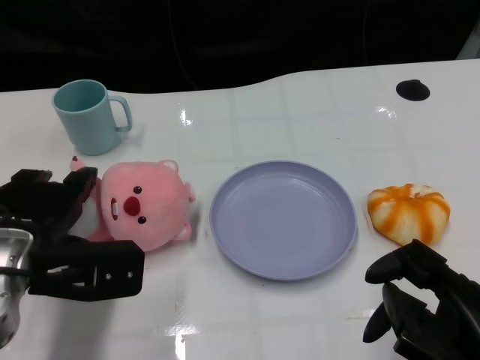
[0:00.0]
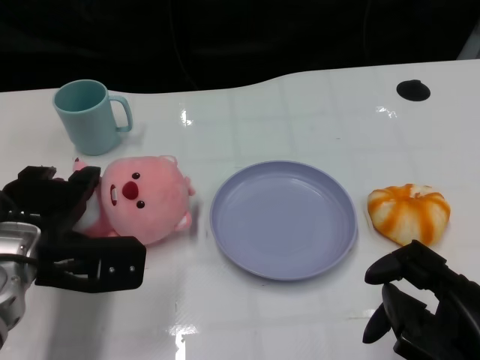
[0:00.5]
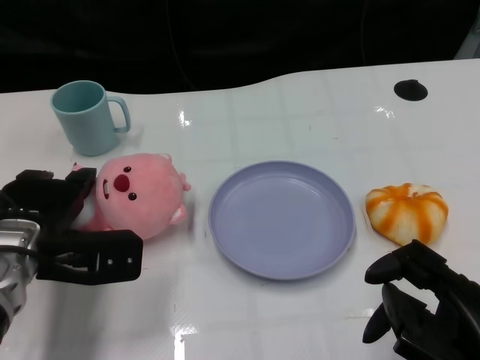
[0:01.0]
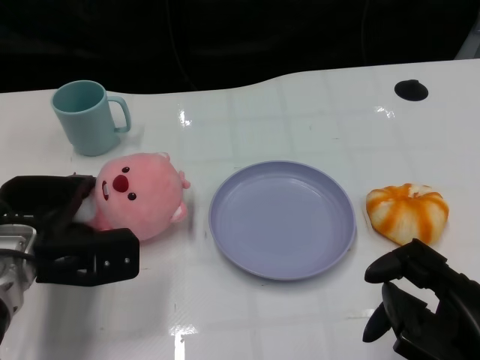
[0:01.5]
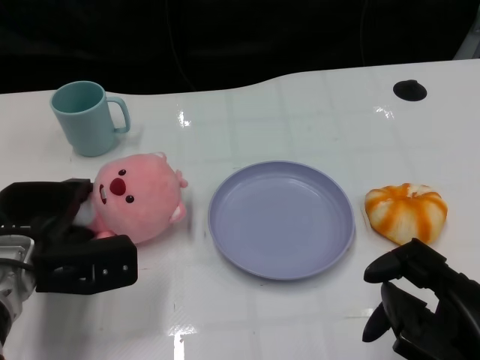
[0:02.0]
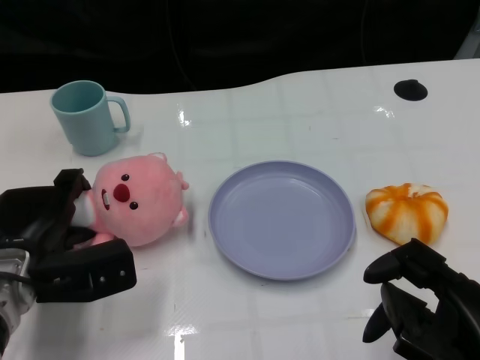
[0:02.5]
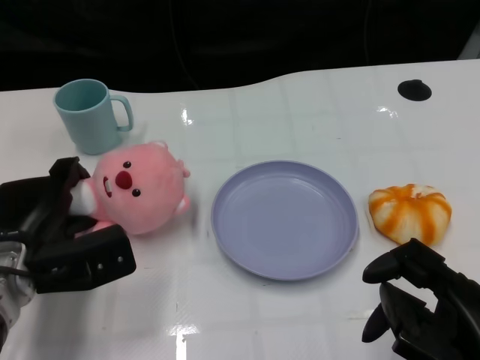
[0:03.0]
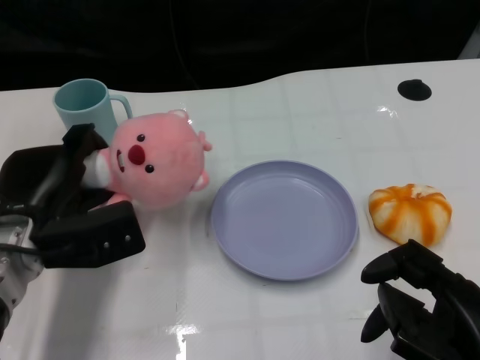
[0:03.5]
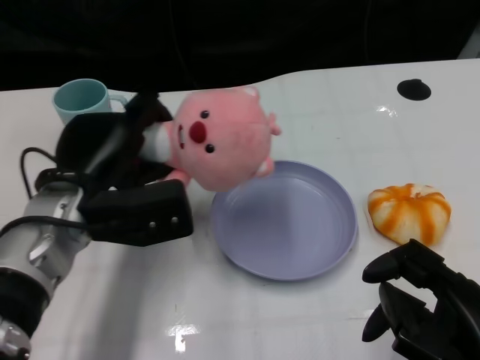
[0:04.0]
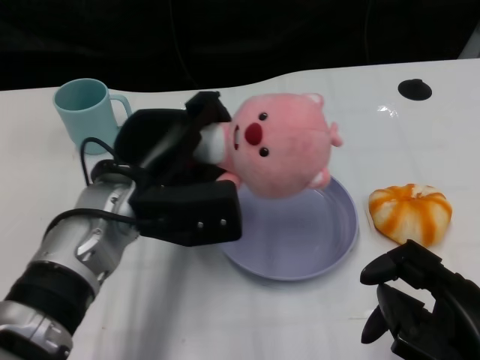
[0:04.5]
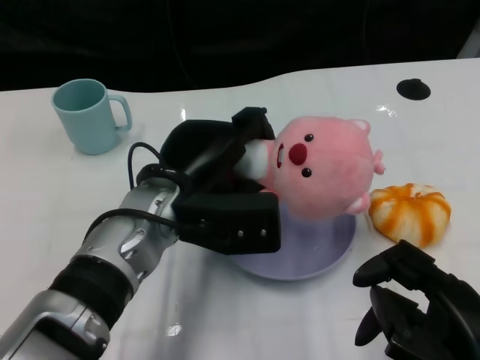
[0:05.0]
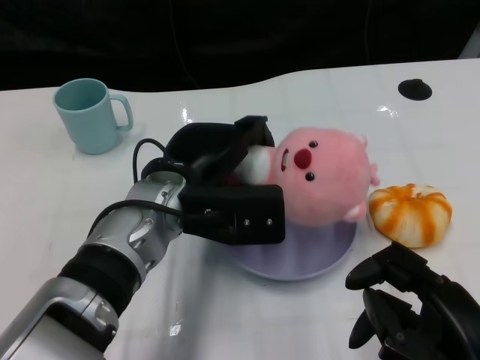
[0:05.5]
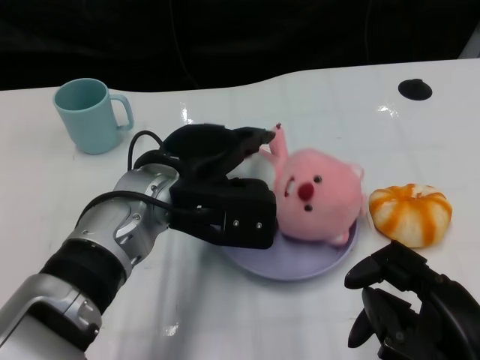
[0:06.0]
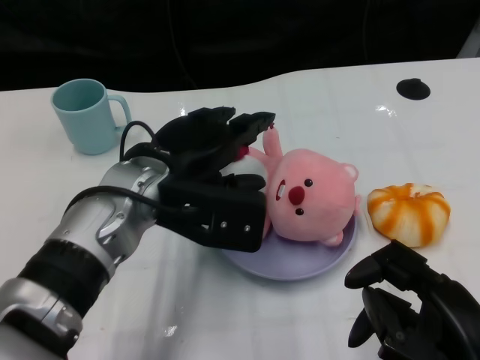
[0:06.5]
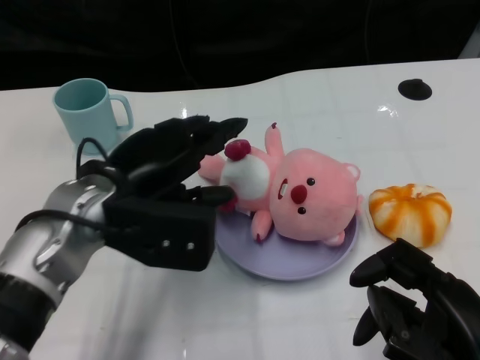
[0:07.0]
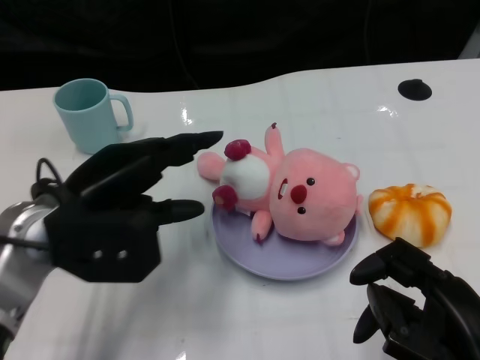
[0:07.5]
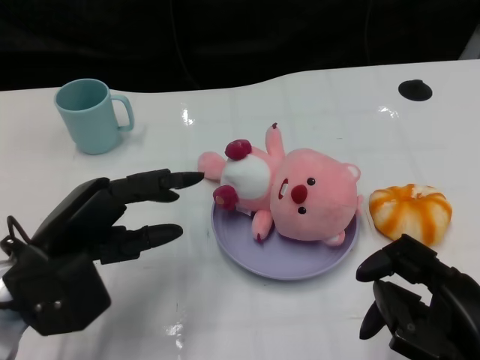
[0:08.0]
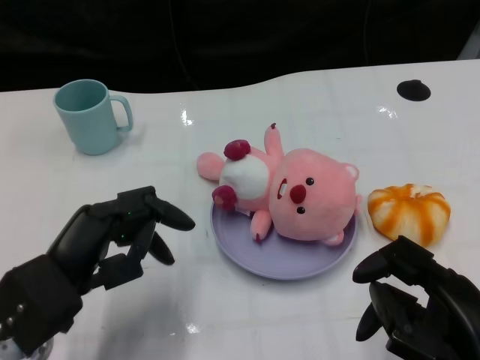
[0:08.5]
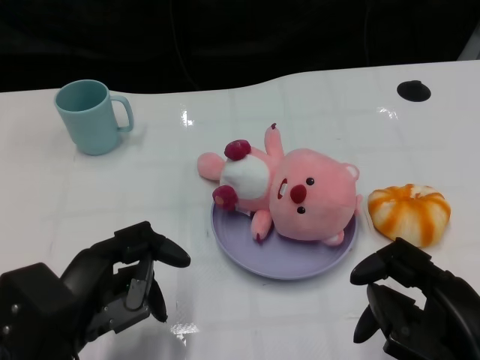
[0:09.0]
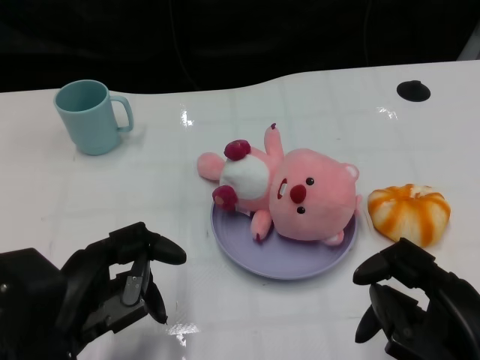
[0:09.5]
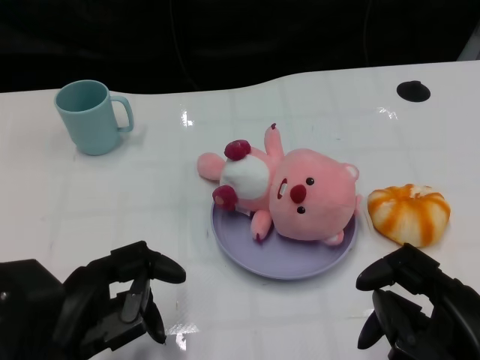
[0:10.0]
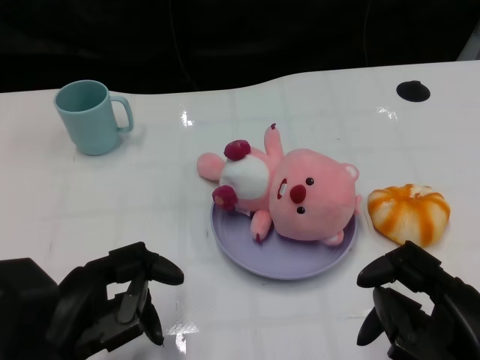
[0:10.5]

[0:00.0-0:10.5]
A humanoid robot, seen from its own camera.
Task of the whole recording: Pick up the doll on one side of the plate and place it into the plate.
Step, 0:00.0 to 0:03.0: Grasp the pink doll with the left gripper.
Step, 0:03.5 to 0:06.0: Place the pink doll into the plate with the left gripper.
0:00.0 to 0:02.0: The left hand moves about 5 cm.
0:02.0 to 0:04.0: The left hand goes roughly 10 cm upward and to the right.
0:04.0 to 0:06.5: The left hand travels to the right by about 5 cm.
0:06.5 to 0:08.5: The left hand shifts some 15 cm to the left, backward and downward.
